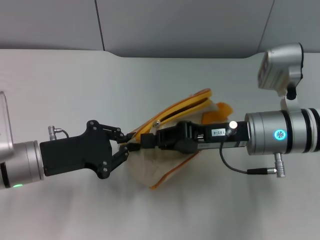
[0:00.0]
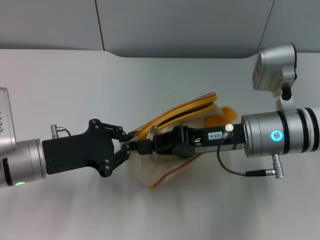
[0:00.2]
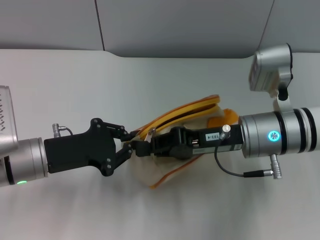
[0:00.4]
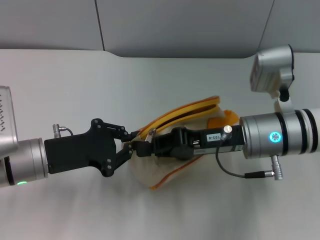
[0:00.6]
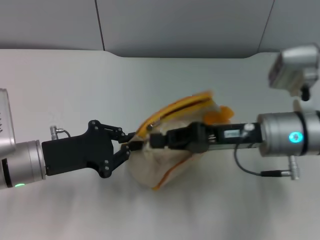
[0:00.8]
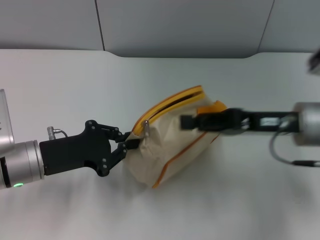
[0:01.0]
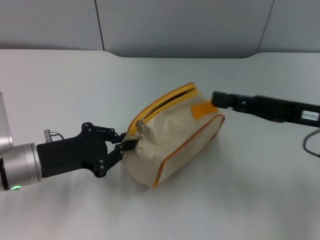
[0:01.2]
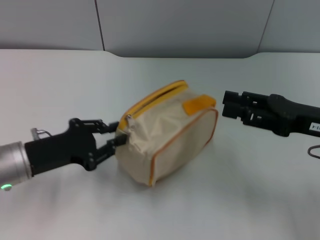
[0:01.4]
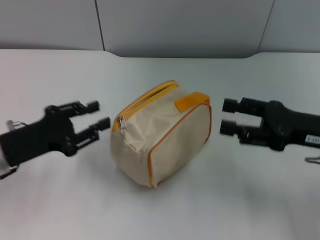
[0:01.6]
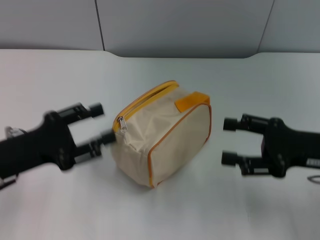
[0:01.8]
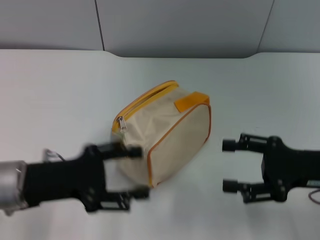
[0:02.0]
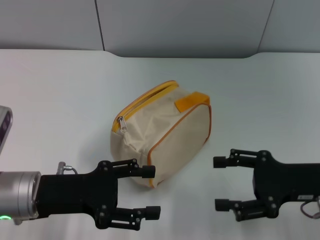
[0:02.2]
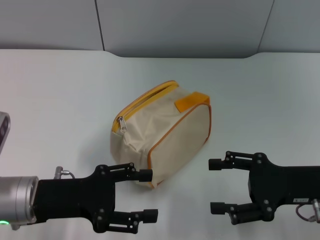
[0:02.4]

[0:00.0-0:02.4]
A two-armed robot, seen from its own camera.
Step, 0:01.2 to 0:01.6: Place the bag on the table with left gripper.
0:00.0 to 0:01.2: The right gripper moves to the right, about 10 cm.
0:01.2 to 0:02.4: The left gripper opens up; the right gripper travels downward by some 5 cm, and opens its fingers.

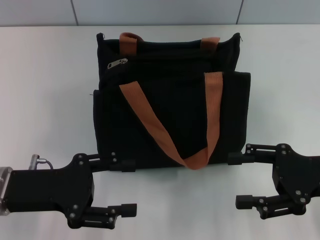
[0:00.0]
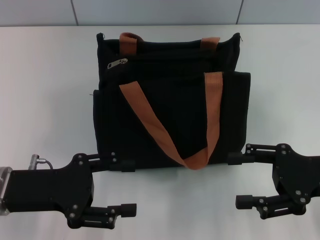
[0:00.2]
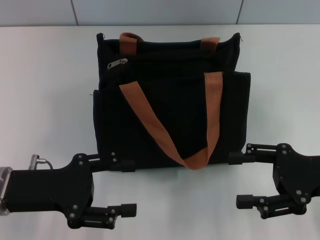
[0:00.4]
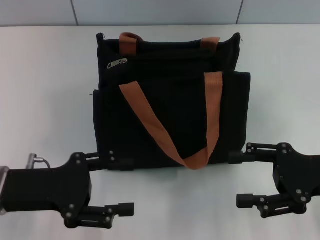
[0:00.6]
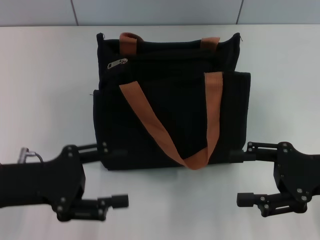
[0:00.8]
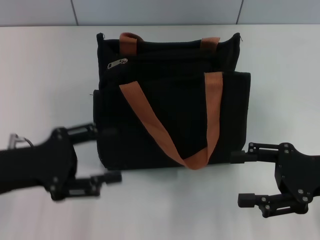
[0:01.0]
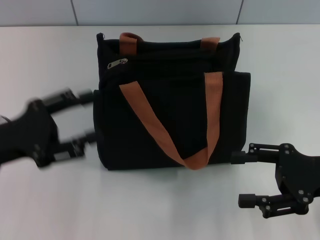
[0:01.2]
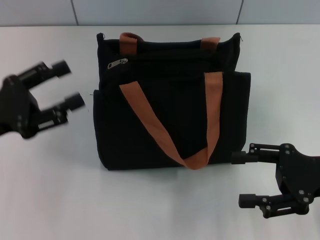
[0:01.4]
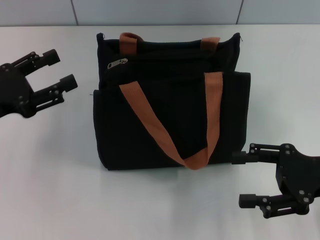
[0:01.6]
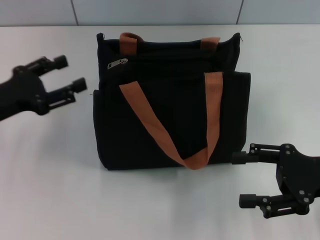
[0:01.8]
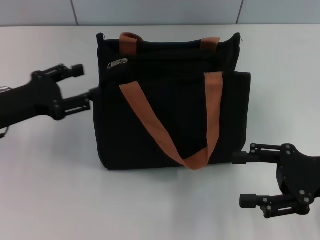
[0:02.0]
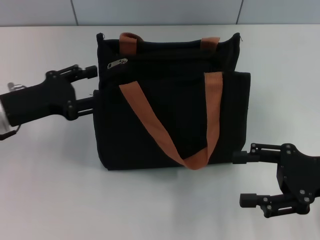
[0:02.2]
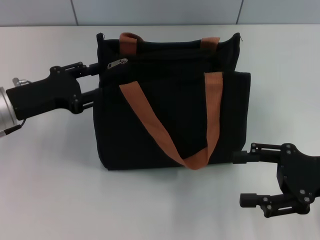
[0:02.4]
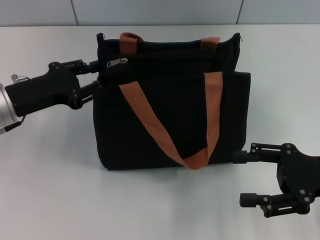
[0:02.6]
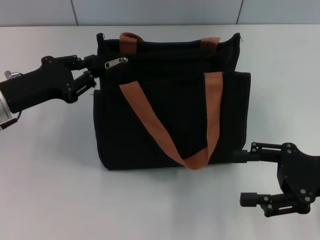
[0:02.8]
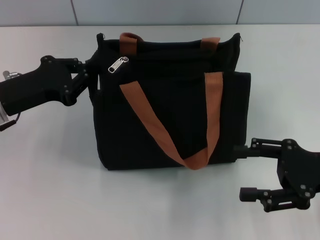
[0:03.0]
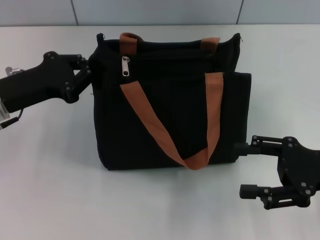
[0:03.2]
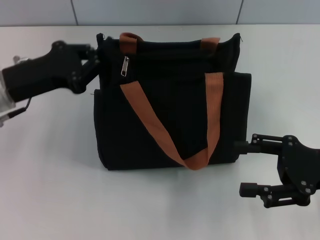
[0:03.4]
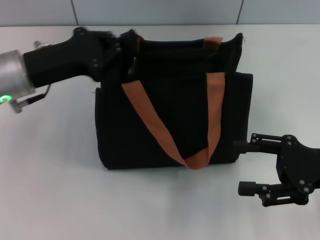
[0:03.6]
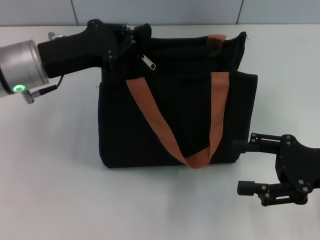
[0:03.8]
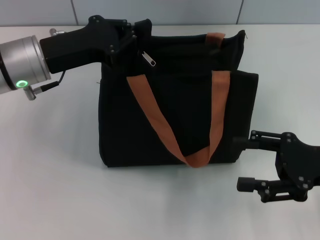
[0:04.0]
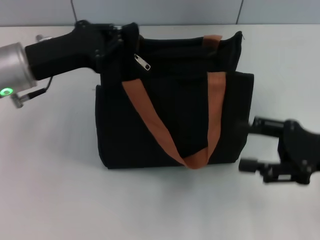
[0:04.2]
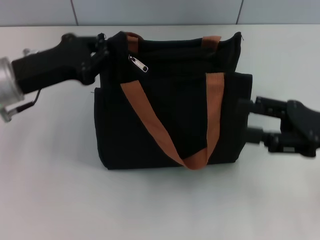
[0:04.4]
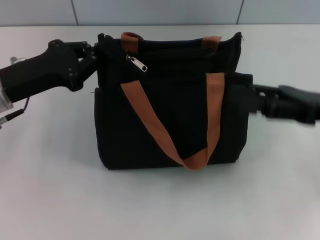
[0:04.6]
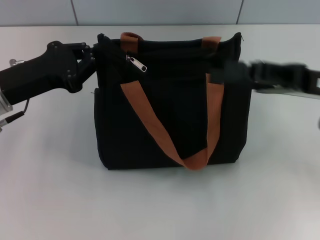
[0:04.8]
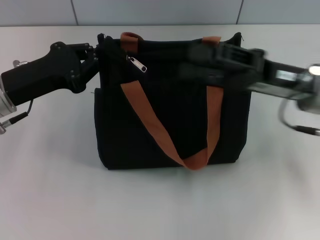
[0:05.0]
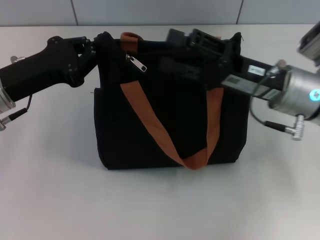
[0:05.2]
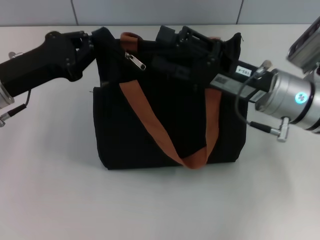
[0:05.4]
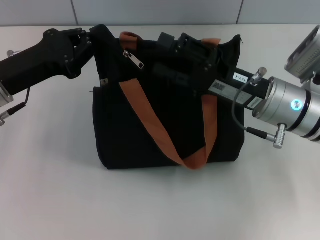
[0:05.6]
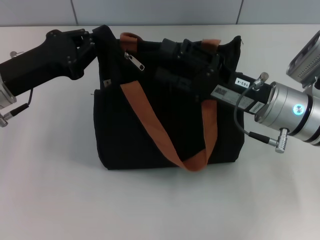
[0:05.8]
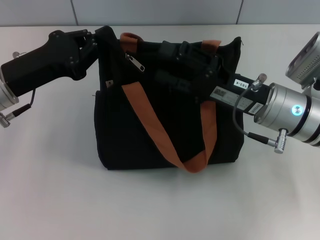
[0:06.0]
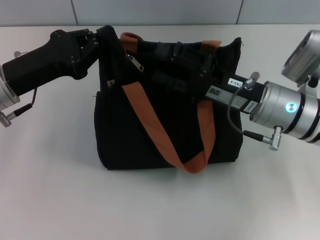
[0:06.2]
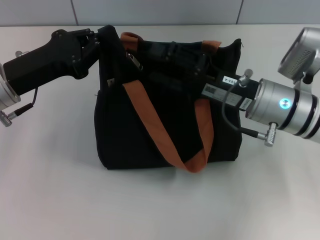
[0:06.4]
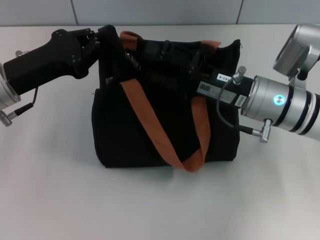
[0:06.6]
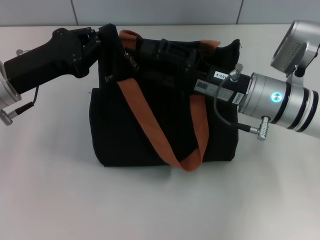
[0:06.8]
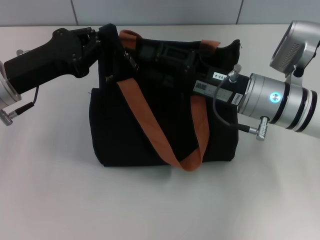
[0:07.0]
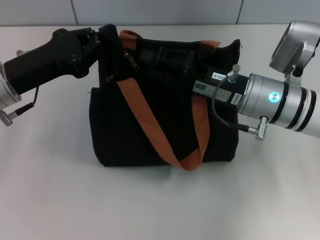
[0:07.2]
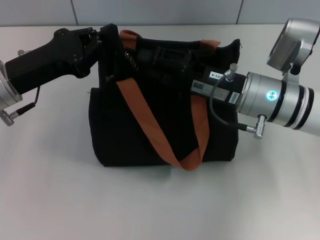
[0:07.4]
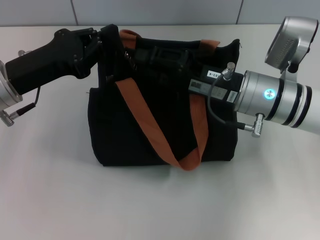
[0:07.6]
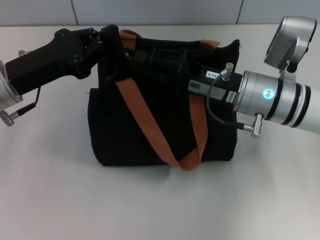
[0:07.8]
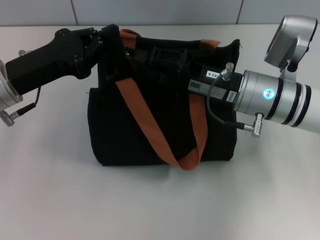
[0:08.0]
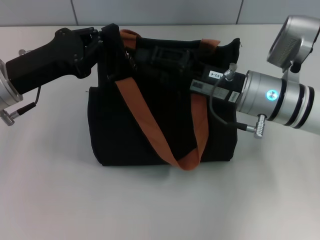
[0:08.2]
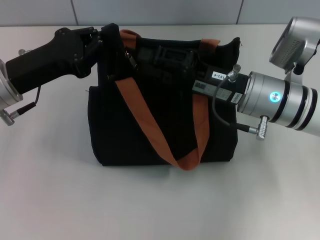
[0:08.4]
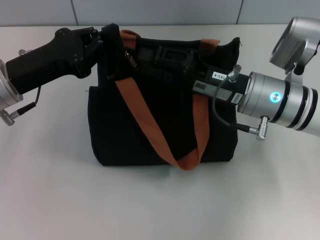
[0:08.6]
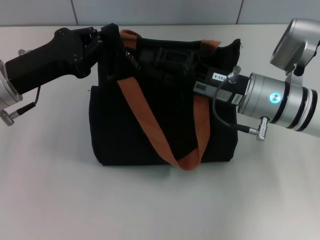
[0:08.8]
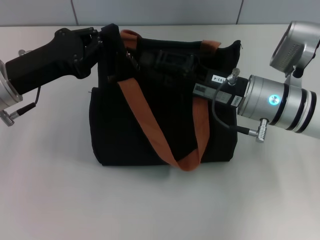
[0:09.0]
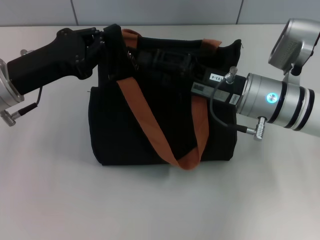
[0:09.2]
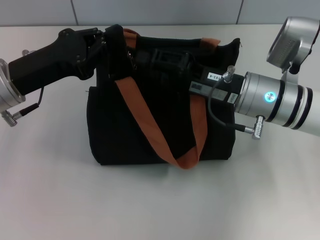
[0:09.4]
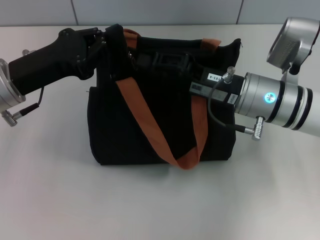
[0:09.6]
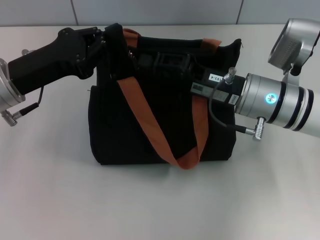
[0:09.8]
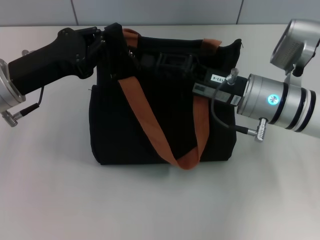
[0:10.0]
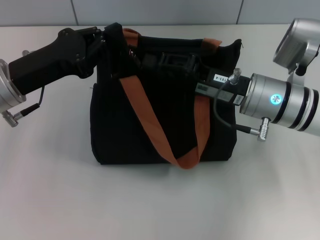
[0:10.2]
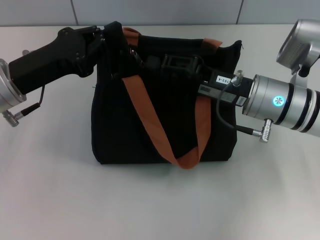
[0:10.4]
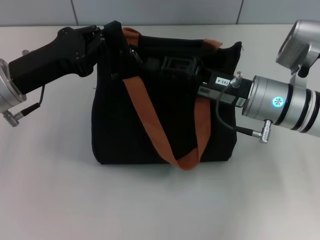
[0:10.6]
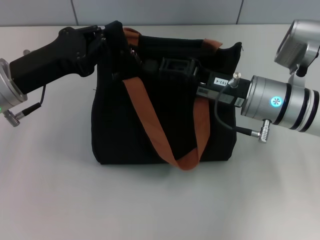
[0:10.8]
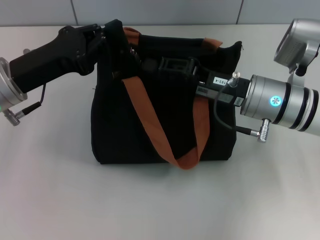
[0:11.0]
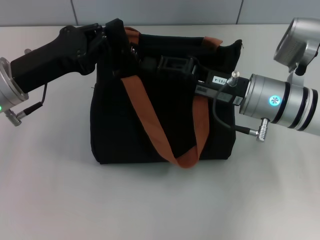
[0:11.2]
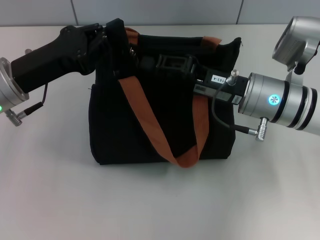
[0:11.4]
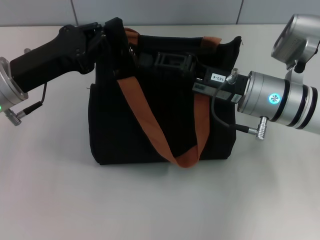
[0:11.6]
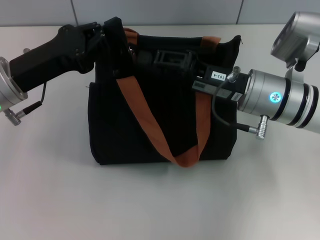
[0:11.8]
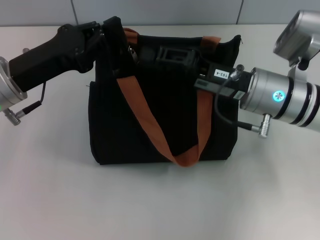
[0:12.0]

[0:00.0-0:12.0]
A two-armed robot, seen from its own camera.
0:00.0 to 0:01.6: The left gripper heads to the left, covering some 5 cm.
0:01.6 to 0:03.0: The left gripper shifts by roughly 5 cm, and closes up.
0:04.4 to 0:06.0: The right gripper travels to the left by approximately 10 cm.
0:06.0 to 0:07.6: The right gripper closes.
0:07.6 to 0:09.0: Both grippers stay put.
0:09.0 to 0:12.0: There are only small adjustments of the grippers.

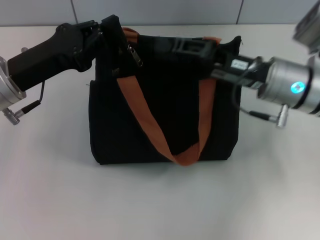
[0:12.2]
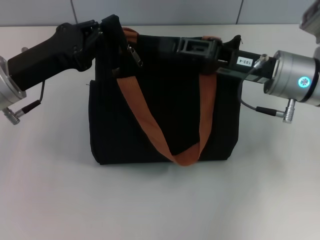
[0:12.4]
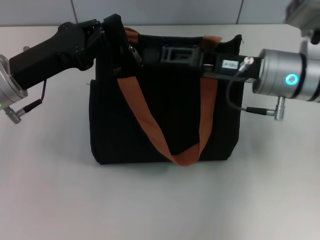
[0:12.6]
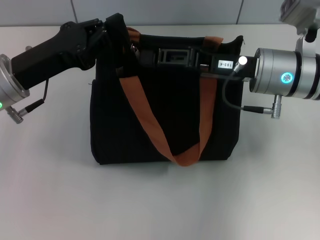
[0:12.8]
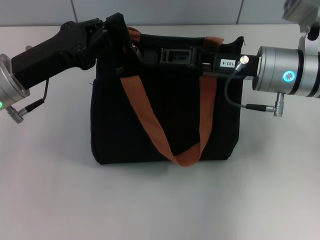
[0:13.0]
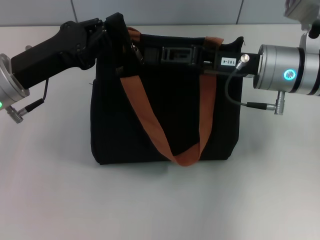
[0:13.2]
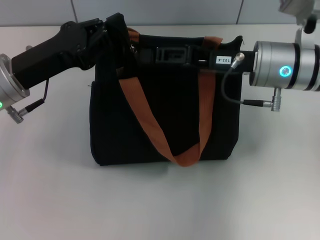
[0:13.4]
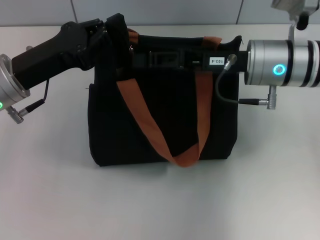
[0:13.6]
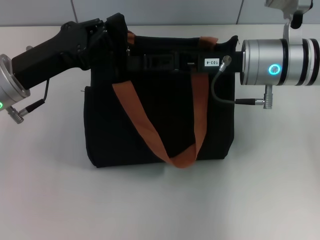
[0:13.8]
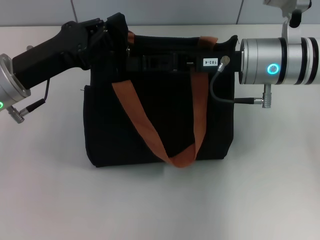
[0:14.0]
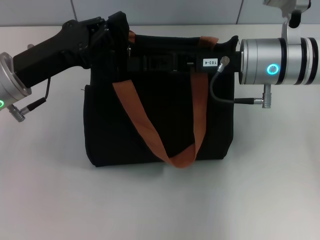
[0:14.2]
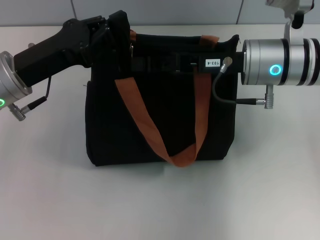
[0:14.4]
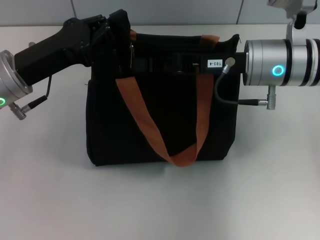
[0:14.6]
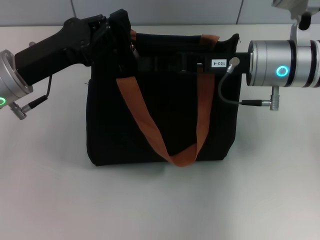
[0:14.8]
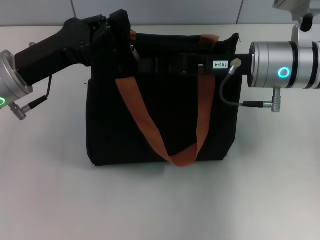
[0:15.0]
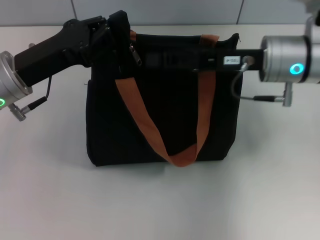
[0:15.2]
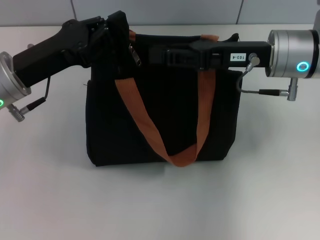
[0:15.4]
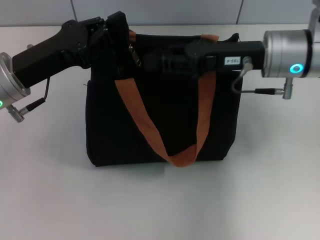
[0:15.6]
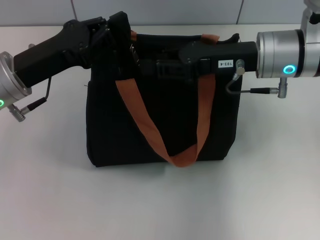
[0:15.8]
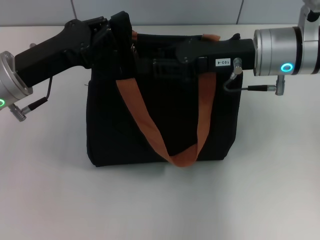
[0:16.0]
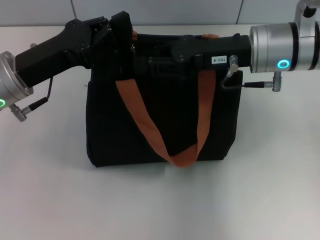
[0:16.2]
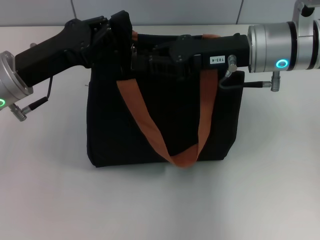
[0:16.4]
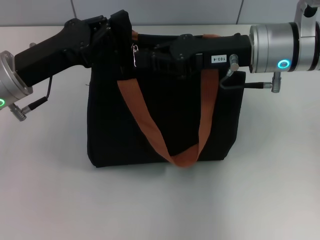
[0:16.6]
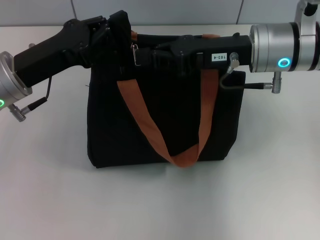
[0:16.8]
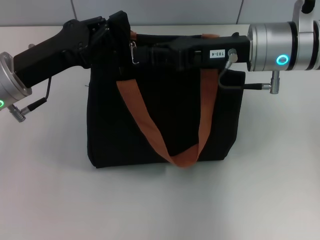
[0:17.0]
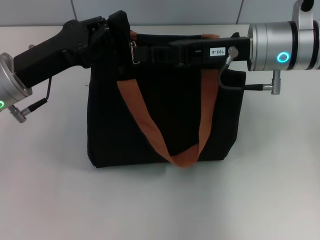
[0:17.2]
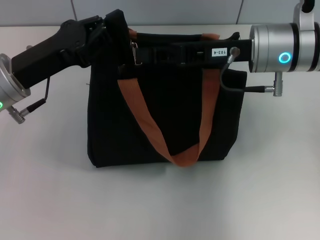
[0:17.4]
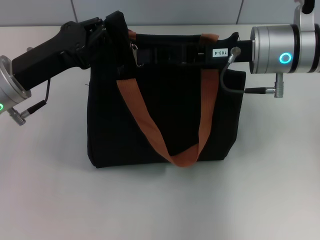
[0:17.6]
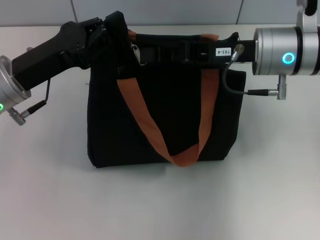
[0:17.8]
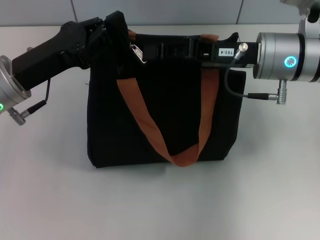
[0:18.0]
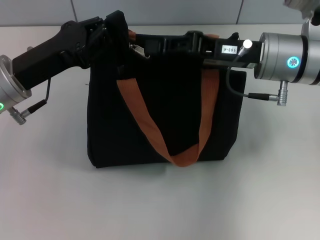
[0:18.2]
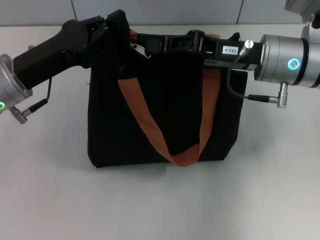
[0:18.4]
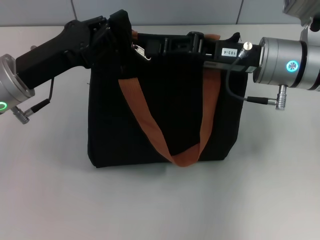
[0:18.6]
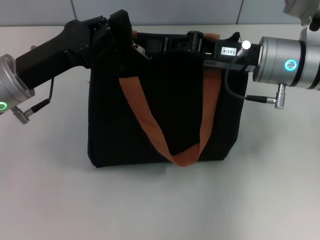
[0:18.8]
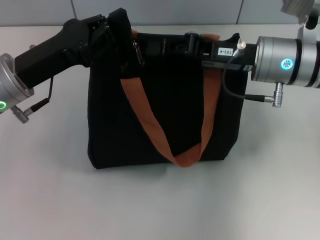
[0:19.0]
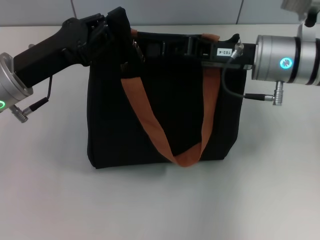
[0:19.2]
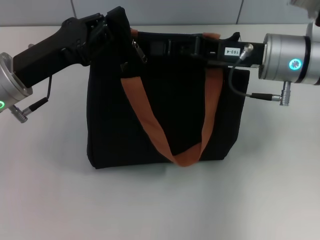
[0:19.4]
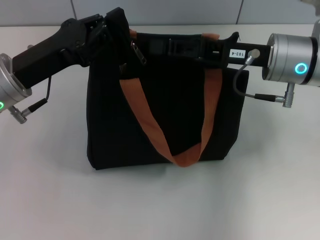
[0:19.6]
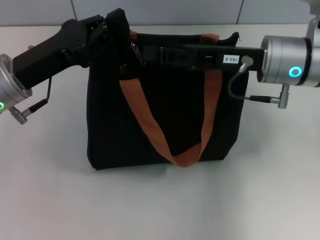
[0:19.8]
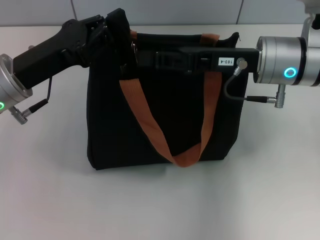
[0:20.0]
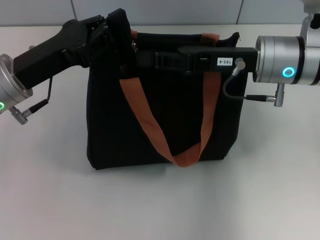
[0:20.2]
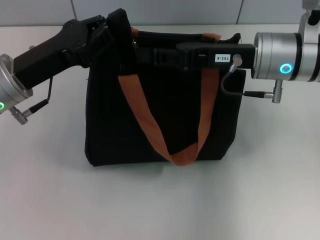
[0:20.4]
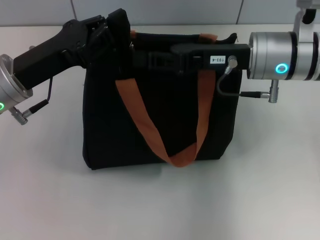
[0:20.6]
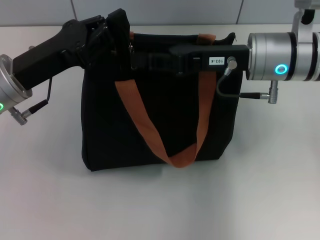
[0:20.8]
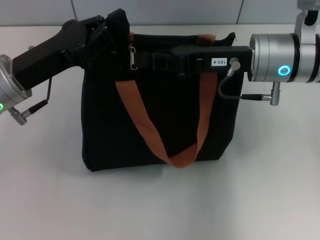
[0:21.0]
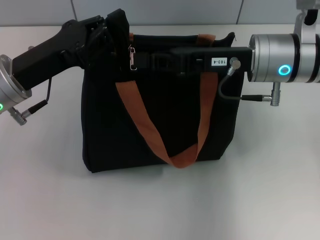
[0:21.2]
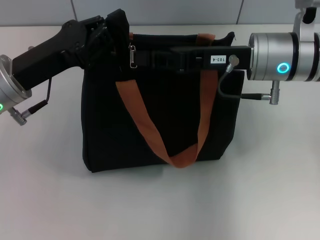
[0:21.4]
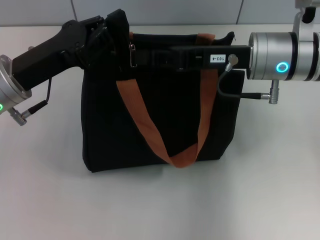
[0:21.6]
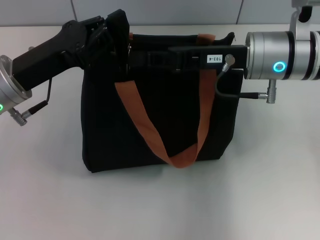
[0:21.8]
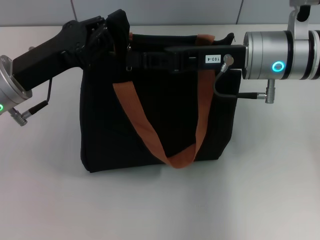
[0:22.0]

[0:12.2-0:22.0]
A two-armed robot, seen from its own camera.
0:13.6 to 0:15.0: Neither gripper changes place.
0:15.0 to 0:16.4: The right gripper opens.
0:16.4 to 0:17.8: The right gripper closes its fingers.
0:17.8 to 0:19.2: The grippers make only small movements.
0:20.6 to 0:22.0: Both grippers stay put.
